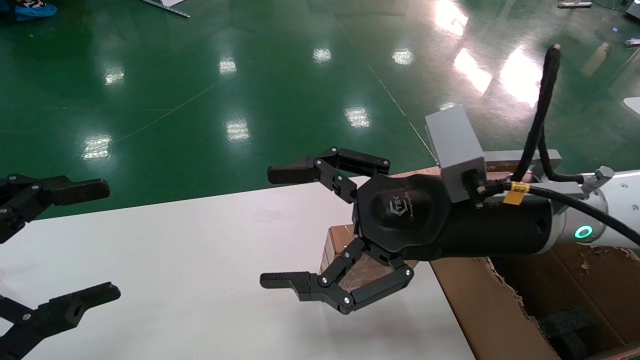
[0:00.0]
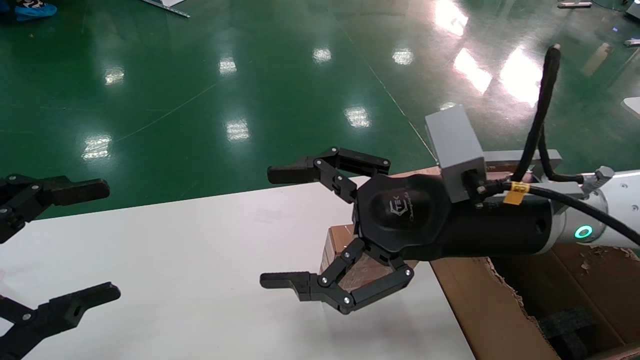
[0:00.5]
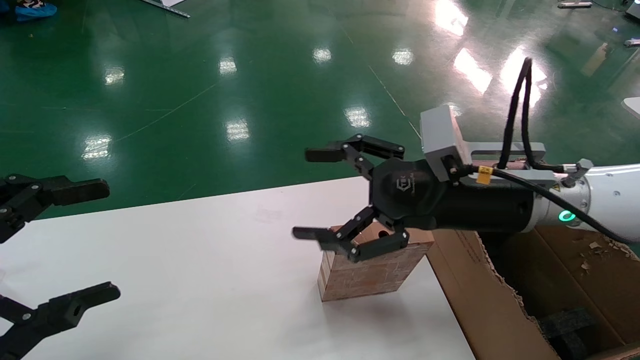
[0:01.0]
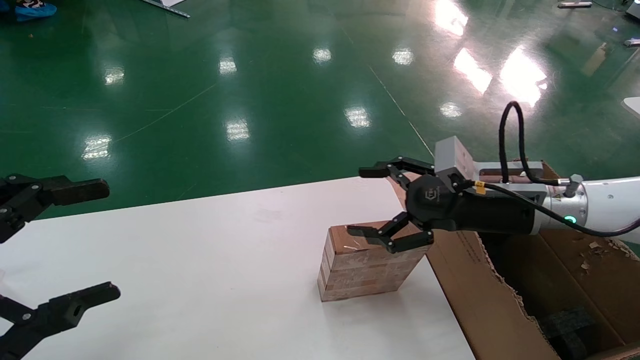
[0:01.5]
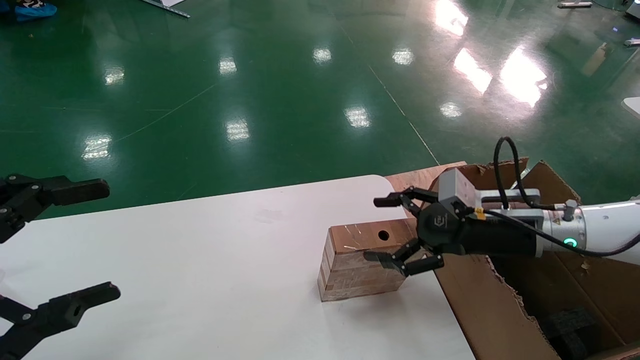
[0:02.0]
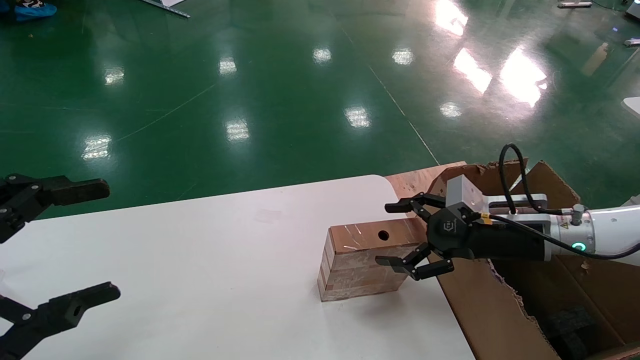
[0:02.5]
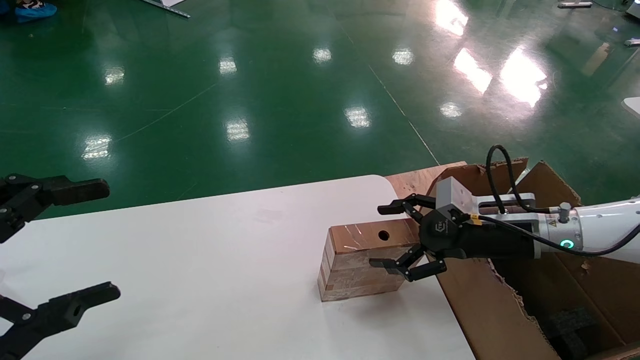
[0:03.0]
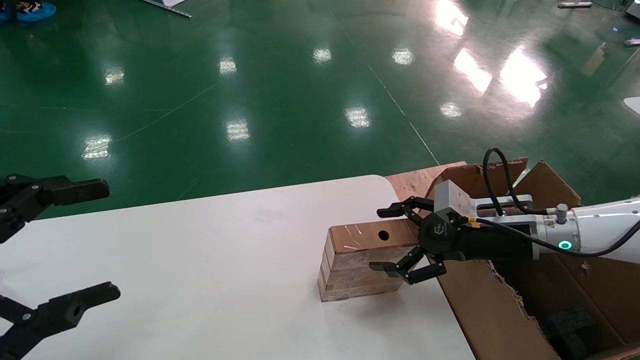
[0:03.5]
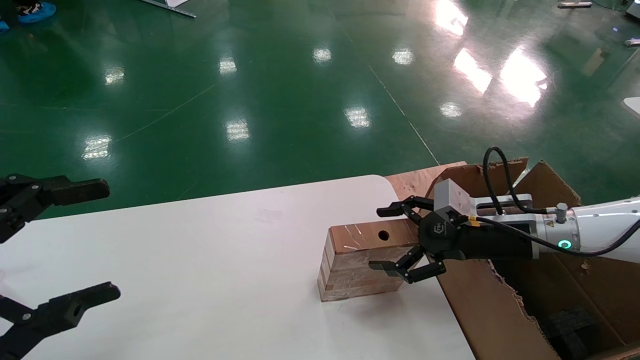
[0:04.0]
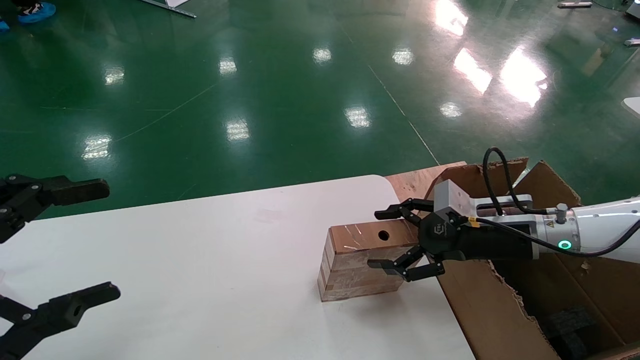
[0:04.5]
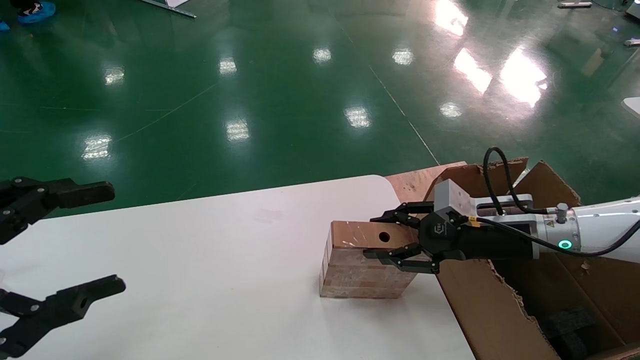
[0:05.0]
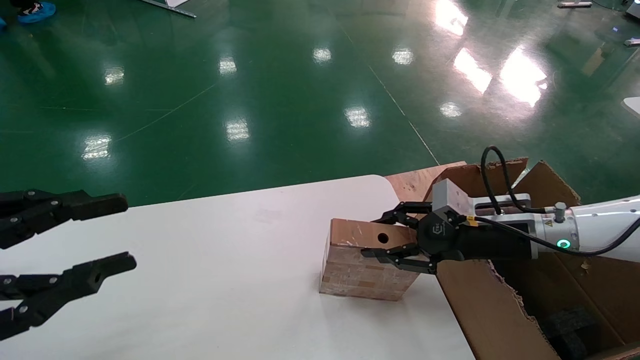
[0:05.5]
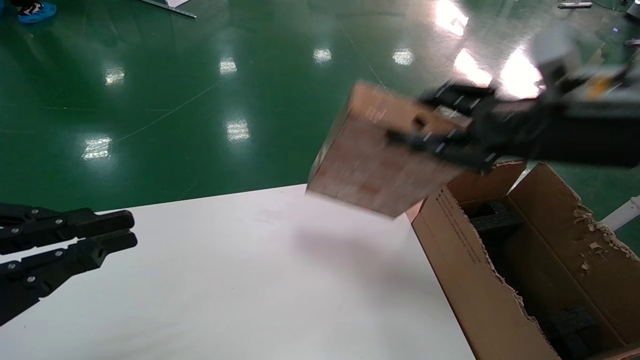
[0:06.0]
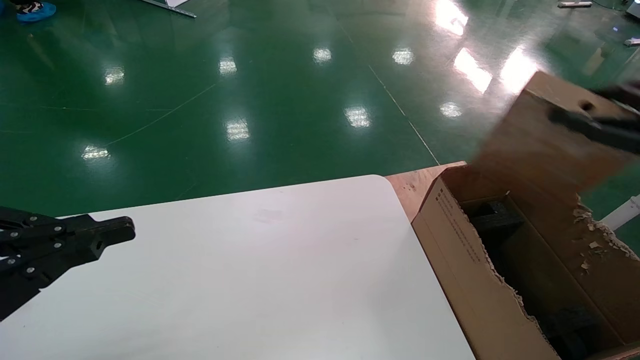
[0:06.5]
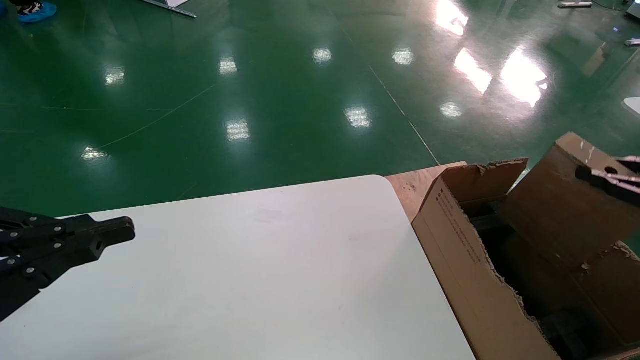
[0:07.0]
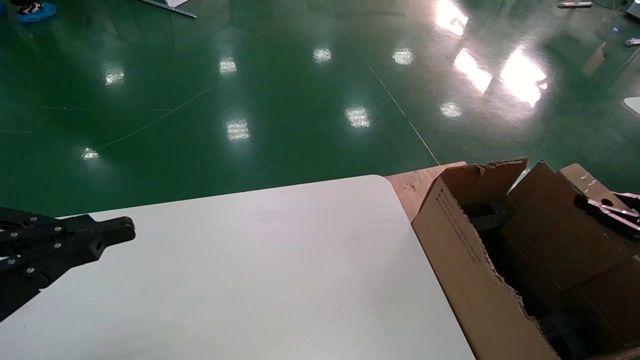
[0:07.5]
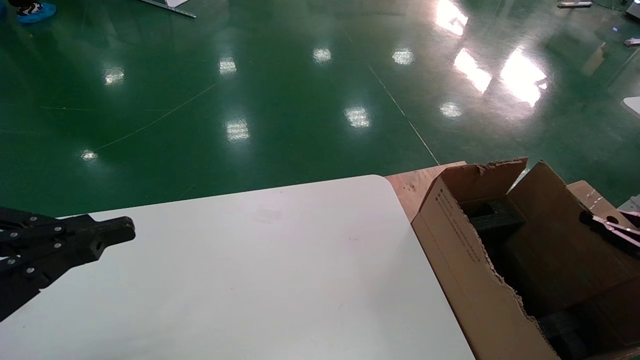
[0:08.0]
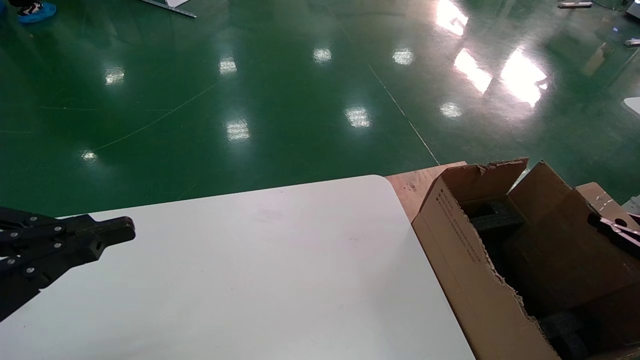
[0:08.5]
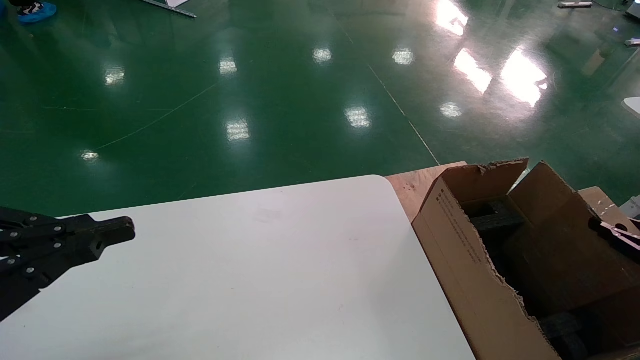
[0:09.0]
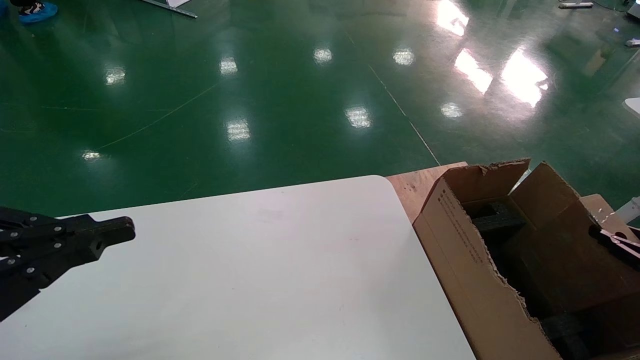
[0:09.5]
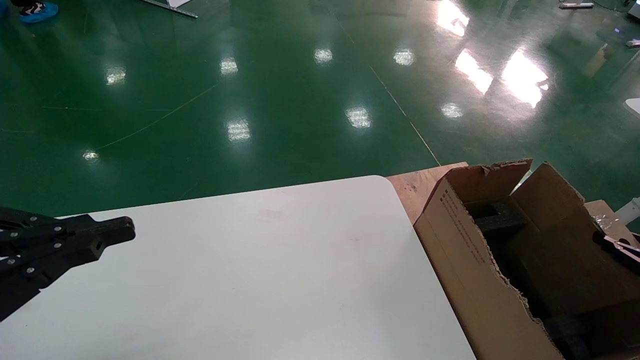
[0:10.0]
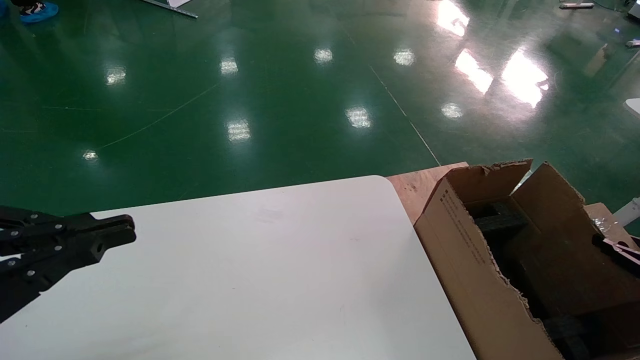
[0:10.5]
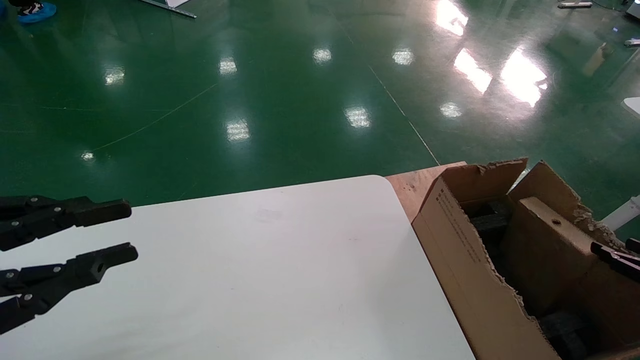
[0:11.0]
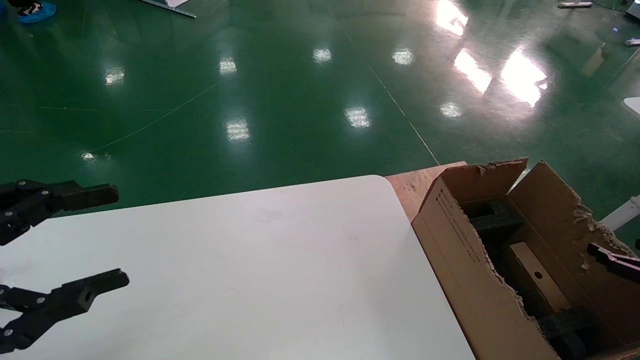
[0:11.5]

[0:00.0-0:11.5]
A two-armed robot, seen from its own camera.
Task of the whole recording: put the box on the table into the big box.
Step, 0:01.5 to 0:05.0: Pick up the mouse and the power cord paper box.
Step, 0:05.5 to 0:11.0: Place the mouse and the power cord paper box into the container.
0:00.0 to 0:02.0: The right gripper goes approximately 20 cm to the right, downward and forward.
0:02.0 to 0:04.0: The grippers move only a little.
0:04.0 to 0:06.0: The right gripper goes approximately 15 cm upward and backward, and closes. Meanwhile the left gripper closes.
0:06.0 to 0:07.5: The right gripper moves to the right and downward, some 30 cm.
0:07.5 to 0:09.5: The right gripper heads downward, covering about 5 cm.
0:09.5 to 0:11.5: The left gripper opens up. Meanwhile the right gripper opens up.

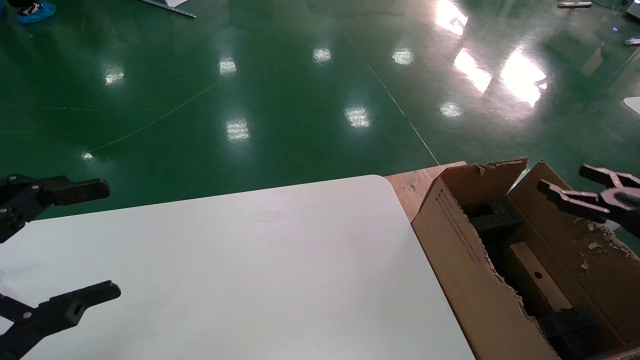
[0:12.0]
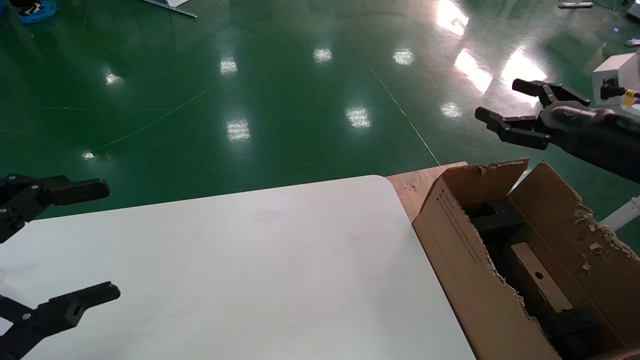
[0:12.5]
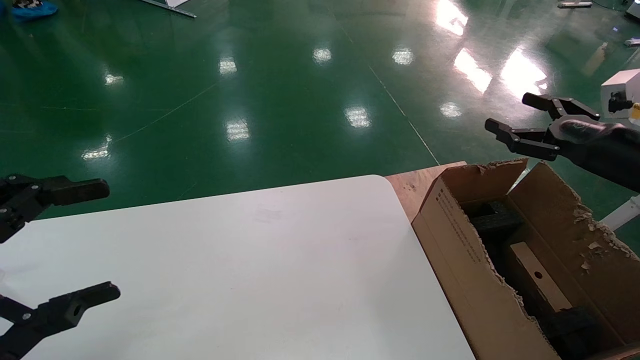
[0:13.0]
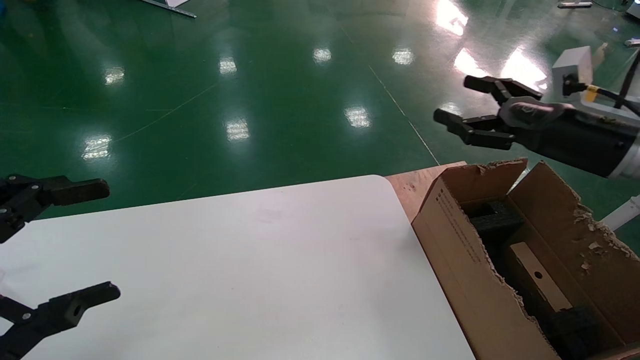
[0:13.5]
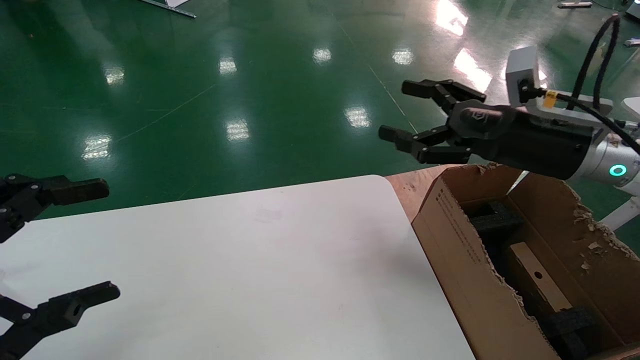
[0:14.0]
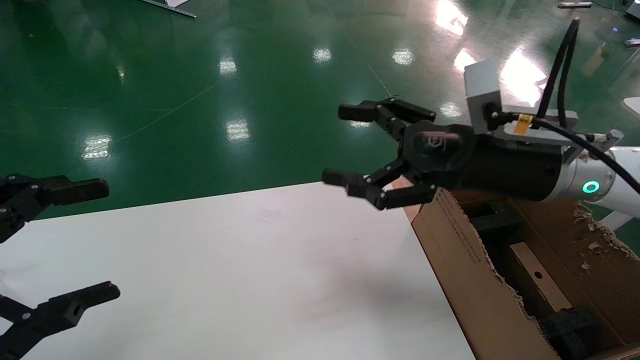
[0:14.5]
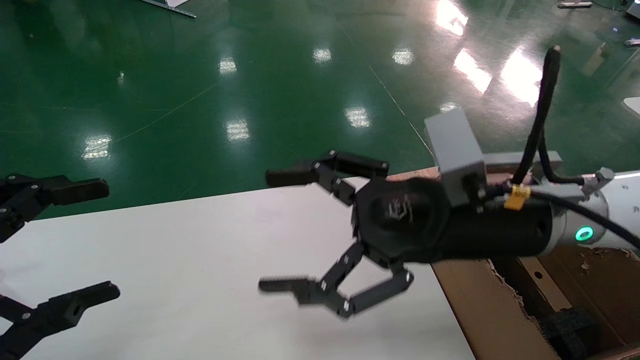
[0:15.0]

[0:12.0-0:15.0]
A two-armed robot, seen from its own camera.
Task of the whole recording: put the box on the table into the big box.
0:12.0 to 0:13.5: The right gripper goes some 20 cm to the left, upward and forward.
0:13.5 to 0:15.0: The right gripper travels to the left by about 20 cm.
